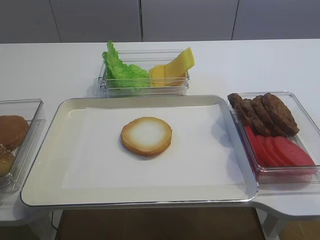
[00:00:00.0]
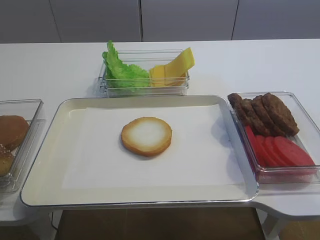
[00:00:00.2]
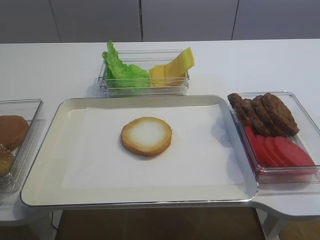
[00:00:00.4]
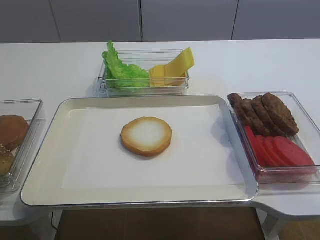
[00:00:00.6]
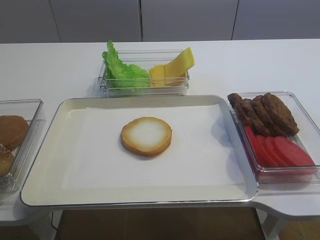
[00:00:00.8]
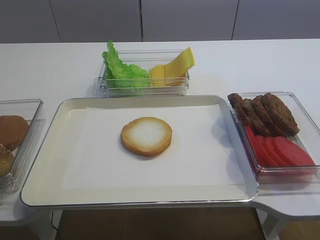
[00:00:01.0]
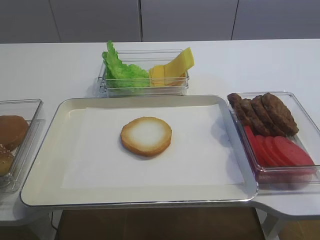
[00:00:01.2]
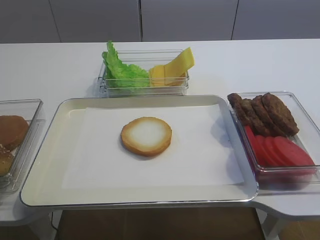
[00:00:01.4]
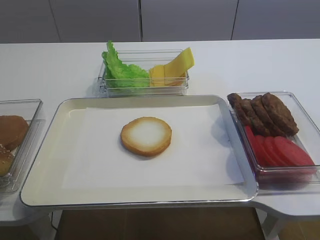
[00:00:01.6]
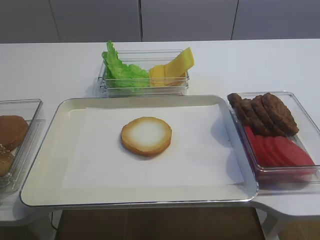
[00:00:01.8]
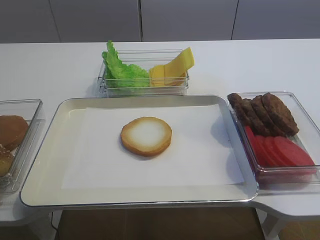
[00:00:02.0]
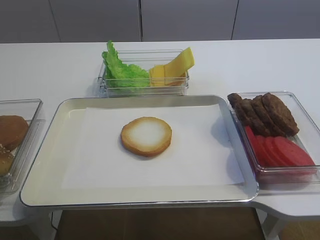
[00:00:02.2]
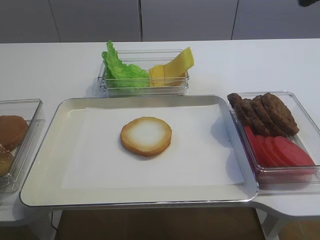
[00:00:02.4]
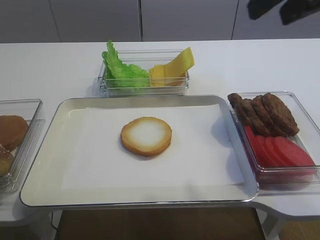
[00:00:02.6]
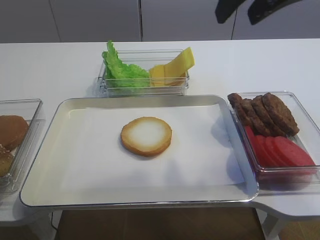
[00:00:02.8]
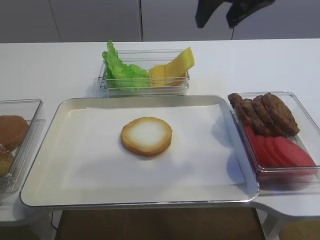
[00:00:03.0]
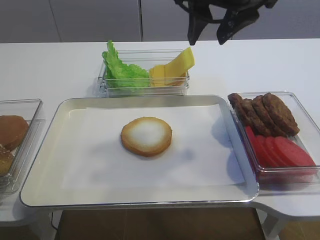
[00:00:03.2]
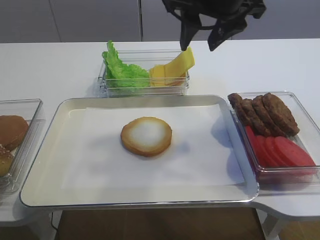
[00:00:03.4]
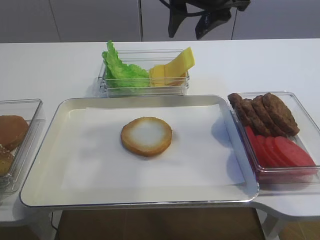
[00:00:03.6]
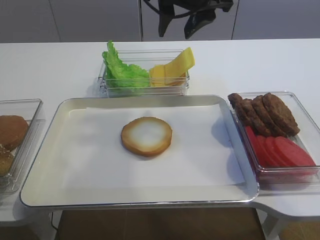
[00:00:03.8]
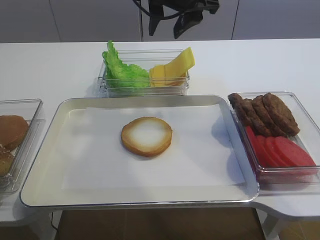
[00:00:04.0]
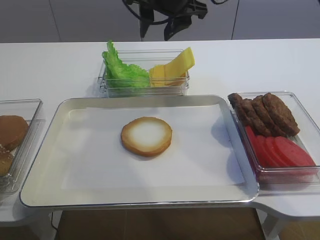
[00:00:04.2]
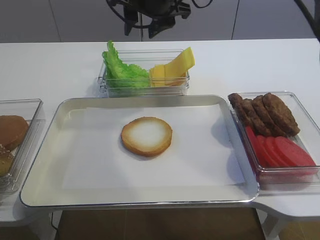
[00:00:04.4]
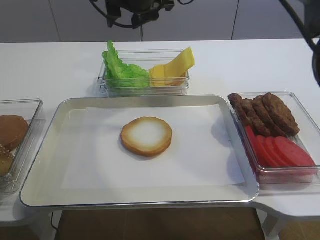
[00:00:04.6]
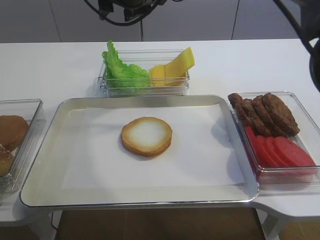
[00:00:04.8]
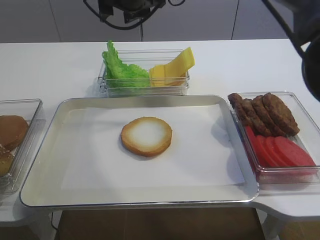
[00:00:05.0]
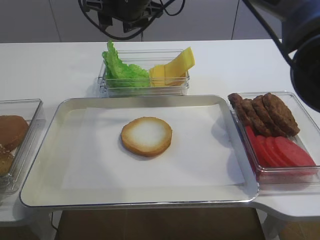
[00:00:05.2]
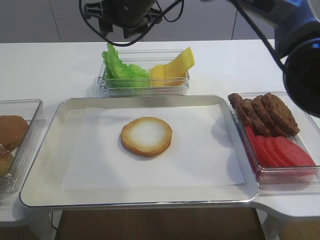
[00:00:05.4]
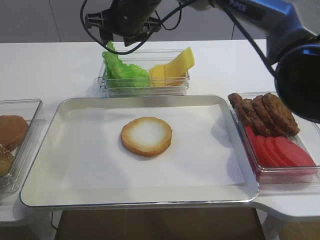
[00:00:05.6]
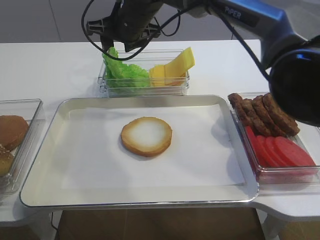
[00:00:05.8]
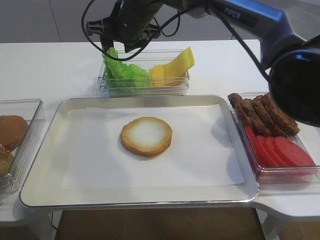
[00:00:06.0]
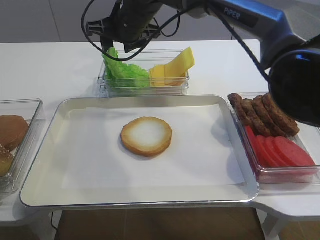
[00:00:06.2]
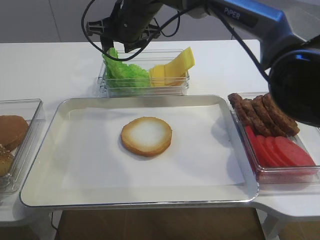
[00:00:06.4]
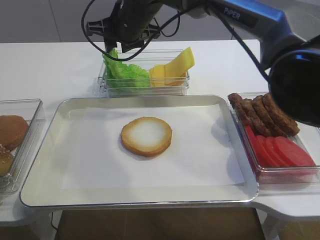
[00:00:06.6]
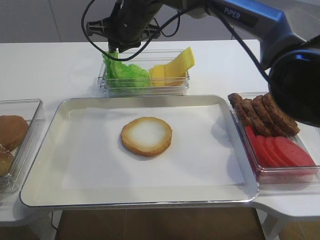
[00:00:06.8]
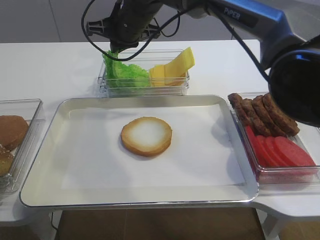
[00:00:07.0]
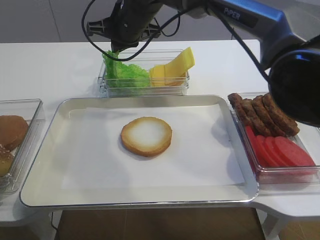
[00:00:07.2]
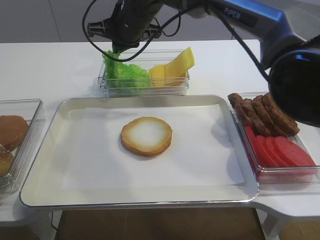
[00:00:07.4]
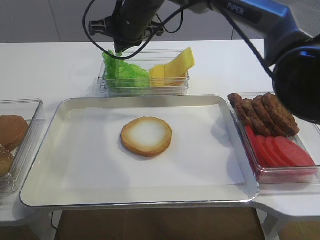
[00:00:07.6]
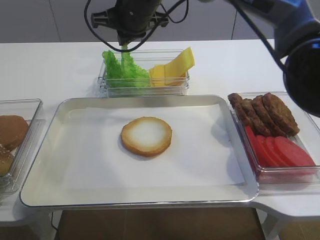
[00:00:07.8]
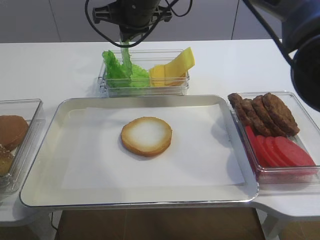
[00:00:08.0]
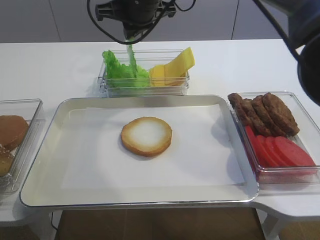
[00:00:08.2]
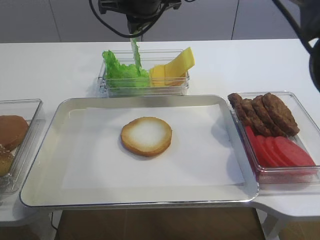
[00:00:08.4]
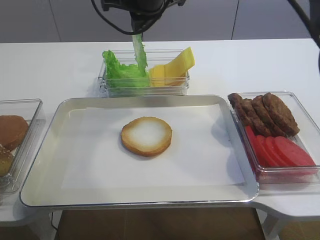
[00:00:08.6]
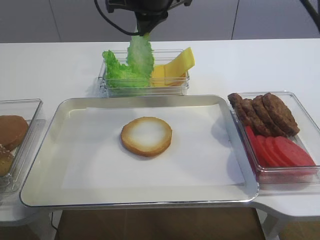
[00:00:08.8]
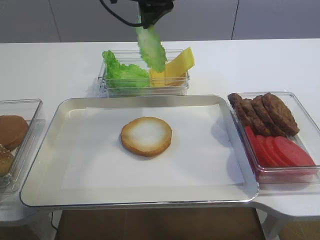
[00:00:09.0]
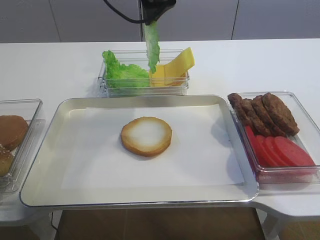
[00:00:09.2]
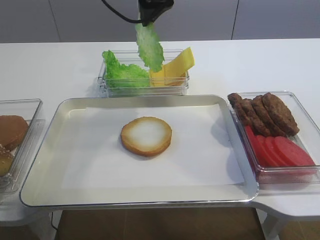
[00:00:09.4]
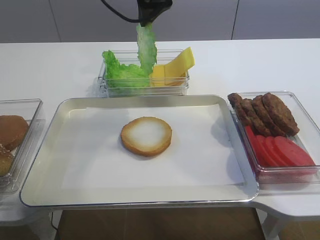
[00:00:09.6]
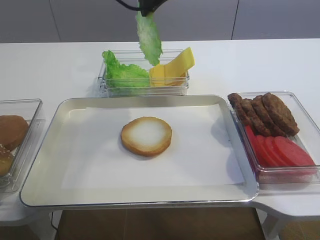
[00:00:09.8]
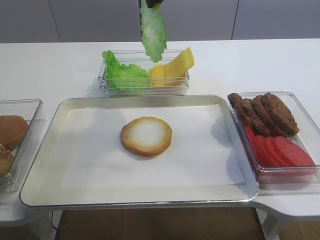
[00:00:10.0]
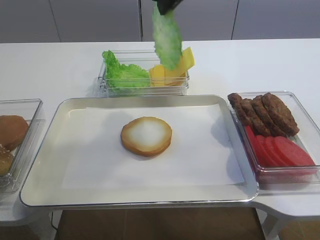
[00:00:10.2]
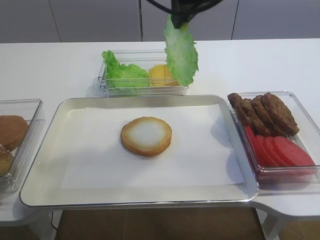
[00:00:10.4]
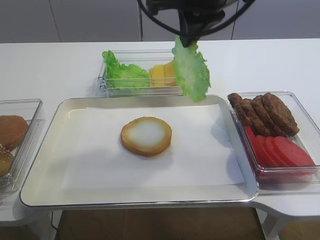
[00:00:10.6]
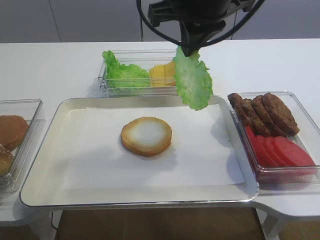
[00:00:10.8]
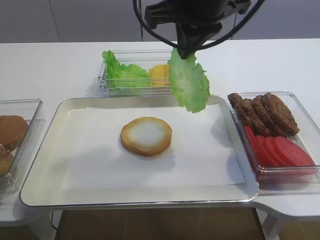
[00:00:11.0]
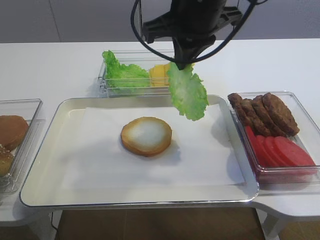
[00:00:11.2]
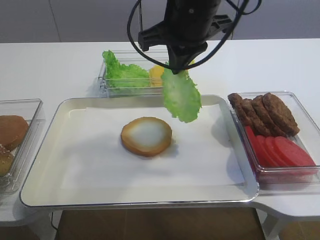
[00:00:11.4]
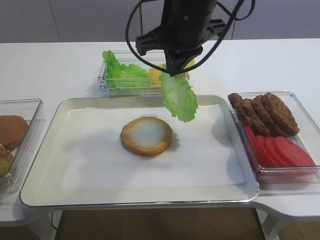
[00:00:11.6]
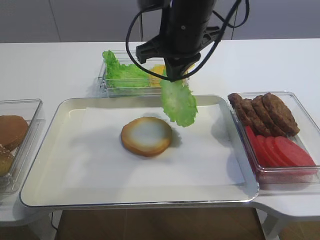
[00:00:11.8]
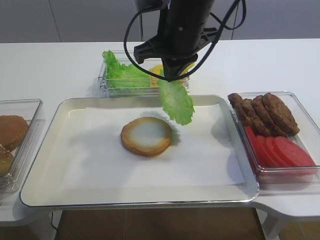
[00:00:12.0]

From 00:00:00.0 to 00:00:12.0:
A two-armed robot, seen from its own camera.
Step, from 00:00:00.0 to 00:00:09.8: Pick up the lettuce leaf with the right gripper.
From 00:00:01.6 to 00:00:03.0: The right gripper heads forward and to the left, covering approximately 30 cm.
From 00:00:03.0 to 00:00:04.4: The right gripper goes about 15 cm forward, to the left and downward.
From 00:00:04.4 to 00:00:06.0: The right gripper travels downward and to the left by roughly 10 cm.
From 00:00:06.0 to 00:00:07.6: The right gripper closes.
From 00:00:07.6 to 00:00:09.0: The right gripper heads upward, covering some 10 cm.
From 00:00:09.0 to 00:00:10.4: The right gripper shifts roughly 5 cm backward.
From 00:00:10.4 to 00:00:12.0: The right gripper shifts roughly 10 cm downward.

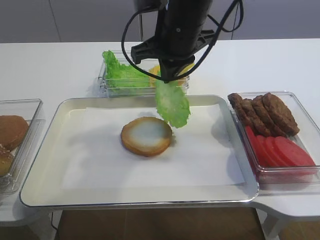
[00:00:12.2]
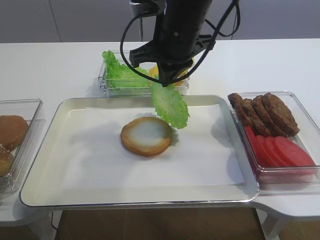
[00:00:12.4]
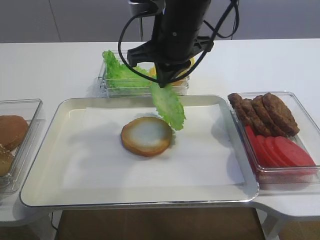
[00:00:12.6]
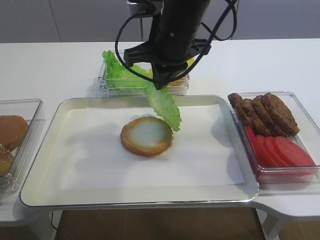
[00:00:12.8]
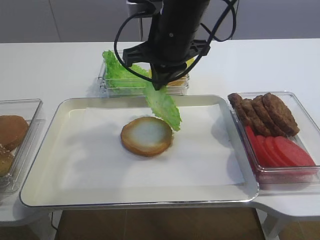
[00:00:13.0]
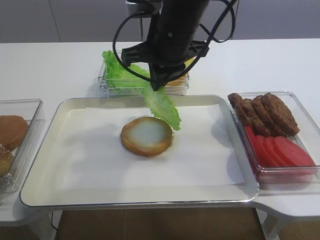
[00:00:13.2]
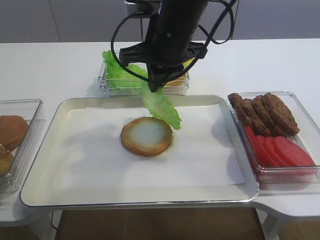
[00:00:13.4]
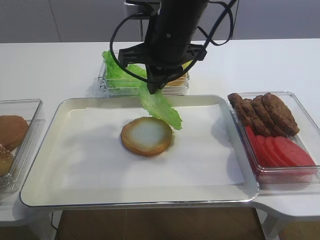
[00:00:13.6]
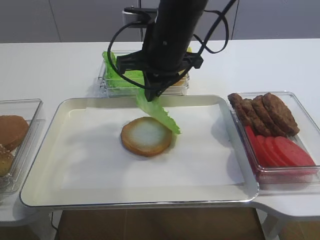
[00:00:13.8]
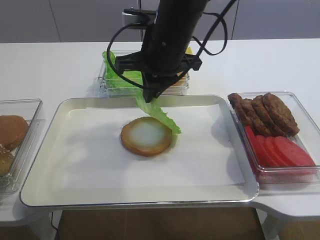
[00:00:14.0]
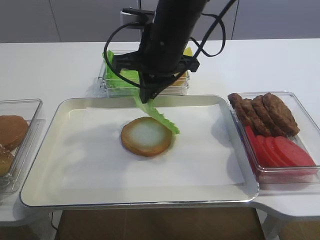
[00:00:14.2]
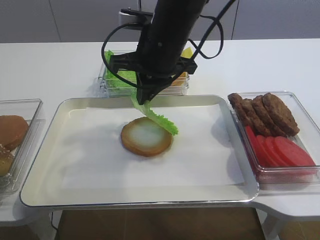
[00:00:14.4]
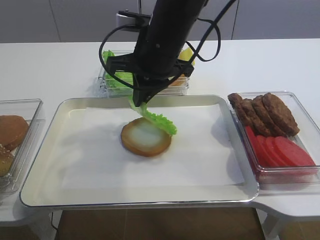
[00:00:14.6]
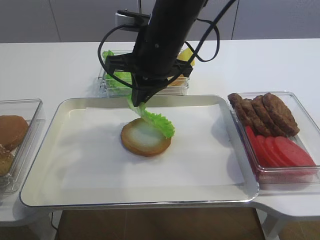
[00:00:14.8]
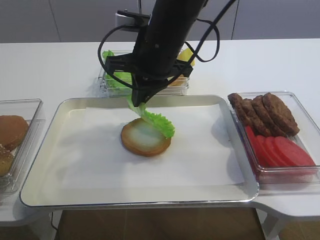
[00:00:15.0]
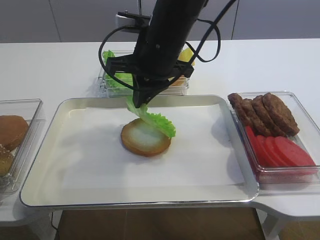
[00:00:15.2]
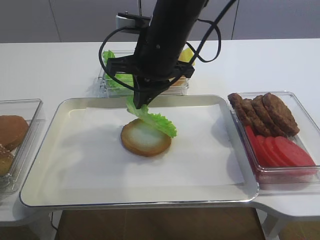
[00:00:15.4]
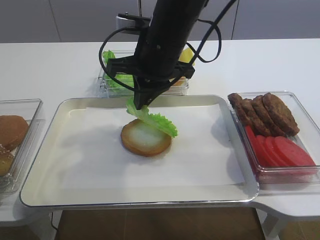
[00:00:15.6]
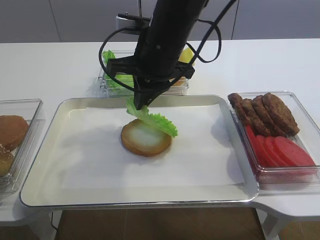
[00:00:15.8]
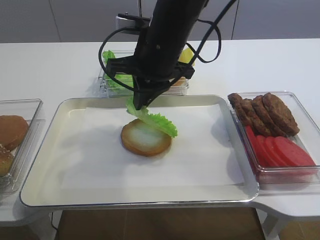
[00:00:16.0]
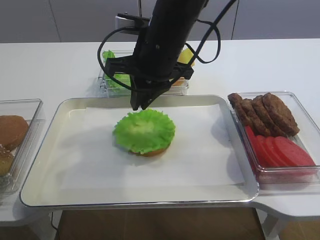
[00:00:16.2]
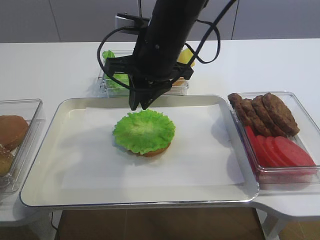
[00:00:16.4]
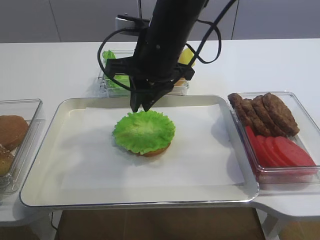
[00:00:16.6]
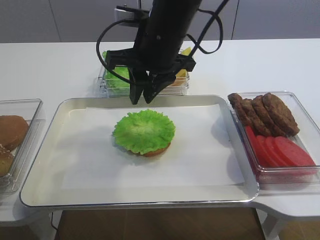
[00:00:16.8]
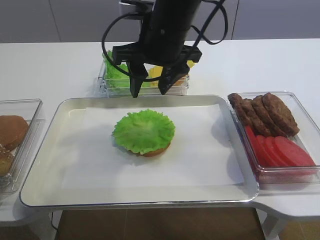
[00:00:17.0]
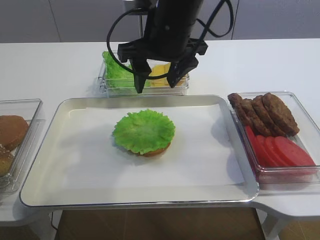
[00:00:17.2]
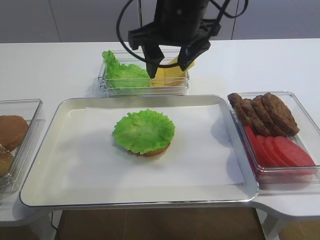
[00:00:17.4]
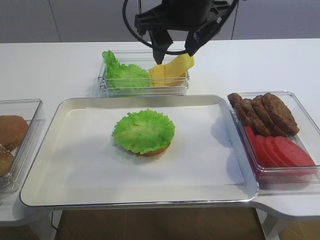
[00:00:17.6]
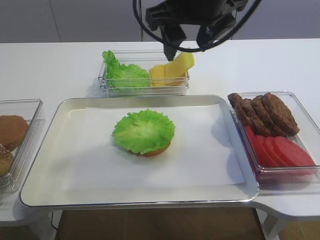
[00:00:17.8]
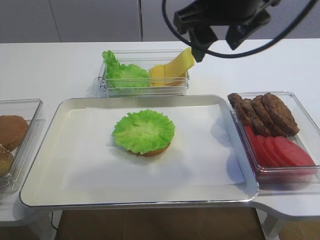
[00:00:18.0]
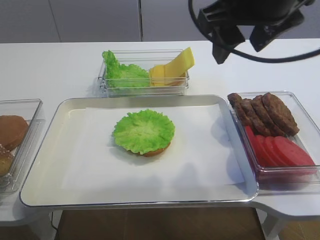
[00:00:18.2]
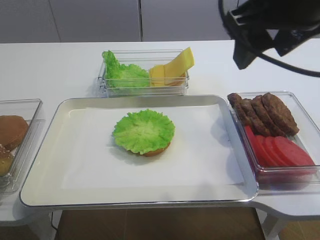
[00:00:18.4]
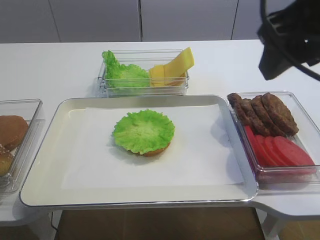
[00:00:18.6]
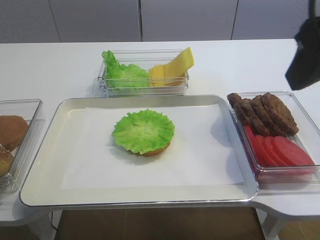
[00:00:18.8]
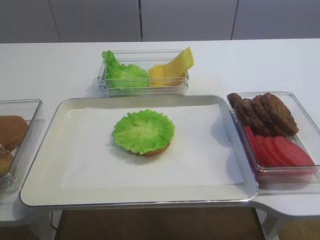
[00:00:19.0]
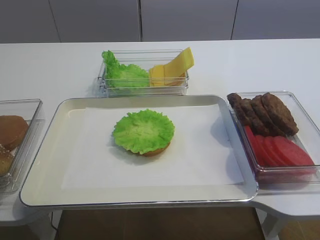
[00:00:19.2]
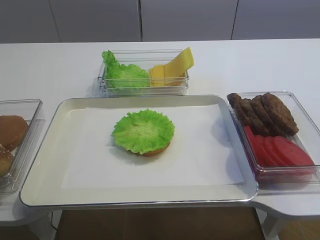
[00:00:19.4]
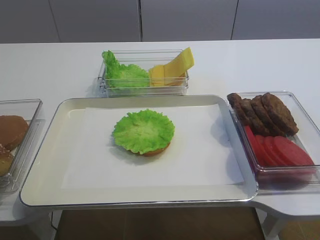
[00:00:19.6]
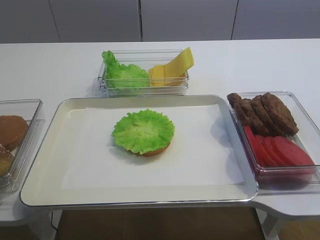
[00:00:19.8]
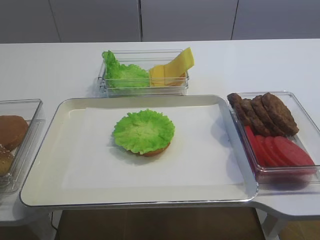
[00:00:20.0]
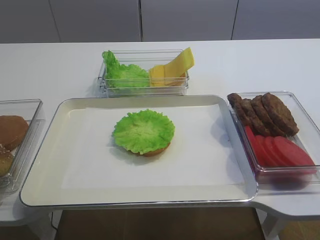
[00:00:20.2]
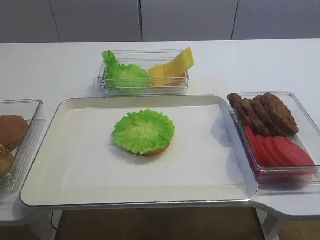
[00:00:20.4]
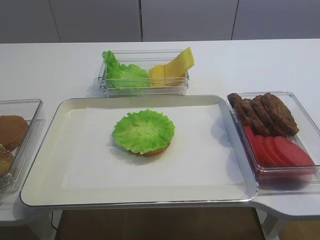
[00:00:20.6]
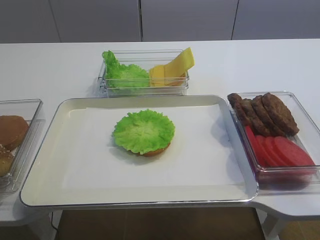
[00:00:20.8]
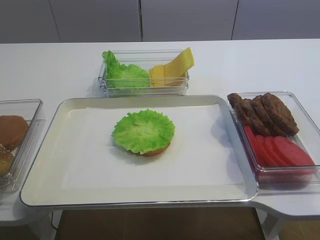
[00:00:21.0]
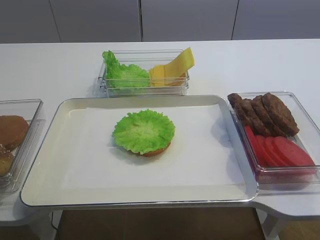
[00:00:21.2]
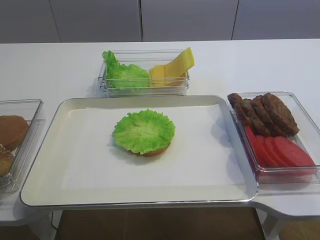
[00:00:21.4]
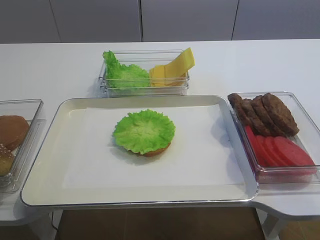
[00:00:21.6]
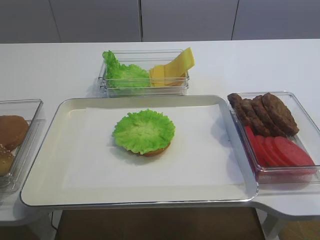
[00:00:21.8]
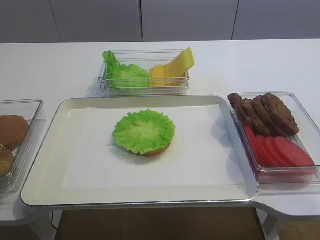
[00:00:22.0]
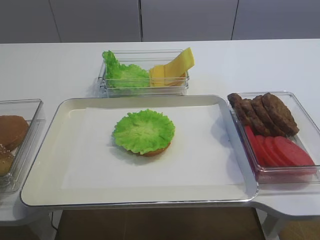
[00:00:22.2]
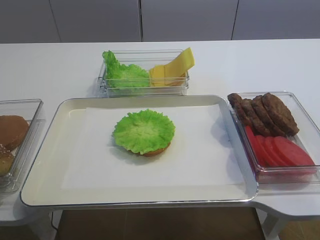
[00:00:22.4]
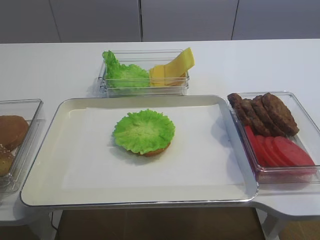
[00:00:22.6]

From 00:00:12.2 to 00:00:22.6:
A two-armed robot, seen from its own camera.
Step, from 00:00:12.2 to 00:00:16.6: Place the lettuce leaf on the bread slice with the right gripper.
From 00:00:12.2 to 00:00:15.2: The grippers make only small movements.
From 00:00:15.2 to 00:00:16.6: Both grippers stay about where they are.
From 00:00:16.6 to 00:00:18.2: The right gripper travels to the right, upward and backward by some 15 cm, and opens its fingers.
From 00:00:18.2 to 00:00:19.6: The right gripper shifts roughly 25 cm backward and to the right.
From 00:00:19.6 to 00:00:21.2: The right gripper moves downward and backward, some 10 cm.
